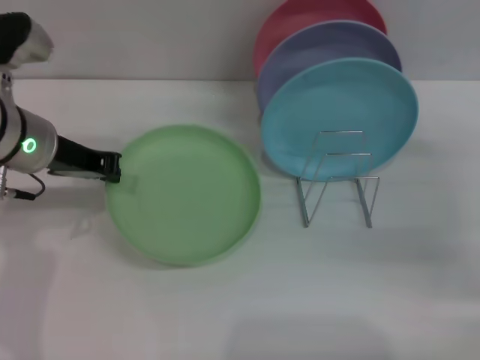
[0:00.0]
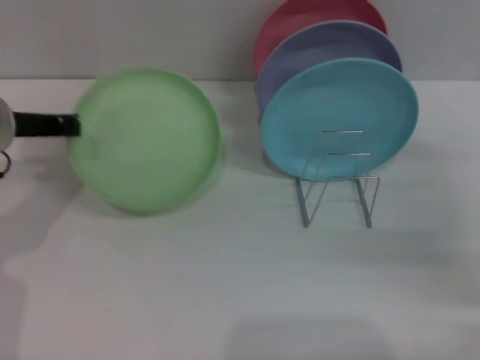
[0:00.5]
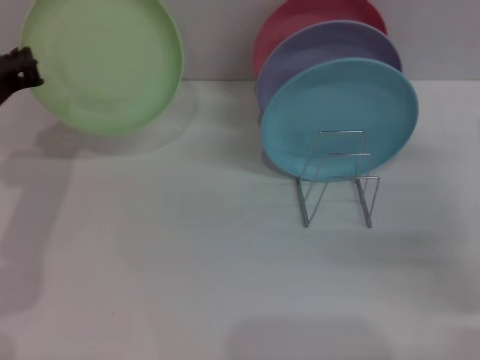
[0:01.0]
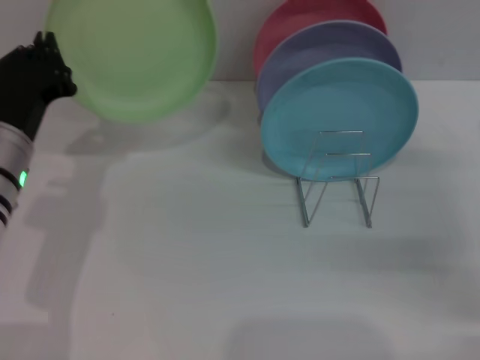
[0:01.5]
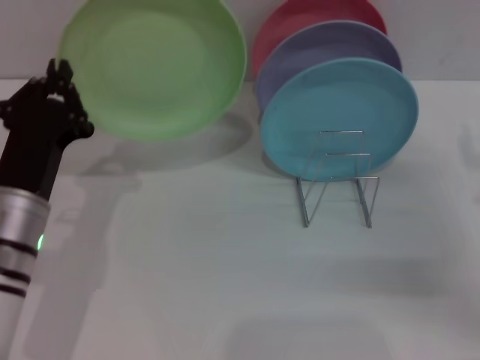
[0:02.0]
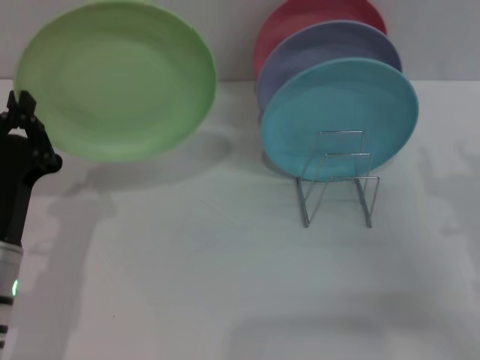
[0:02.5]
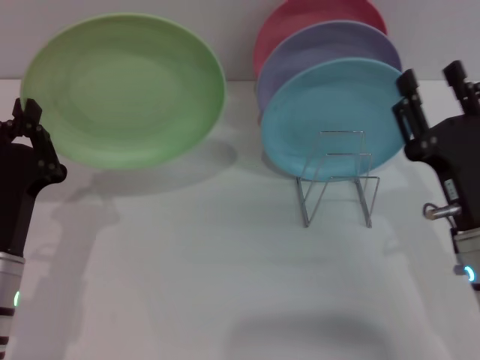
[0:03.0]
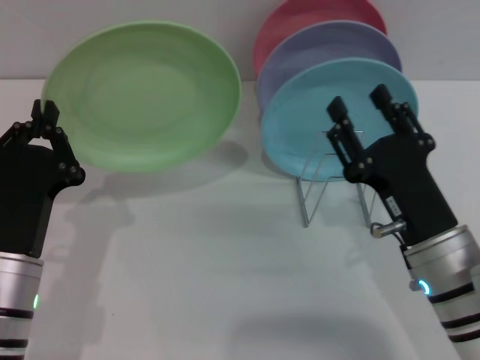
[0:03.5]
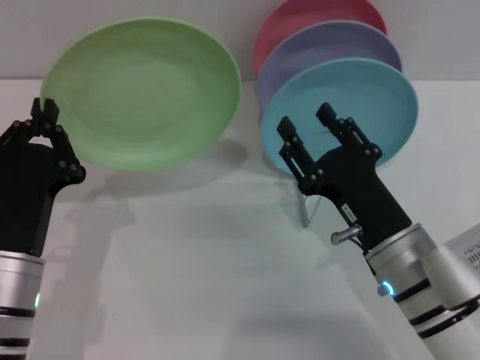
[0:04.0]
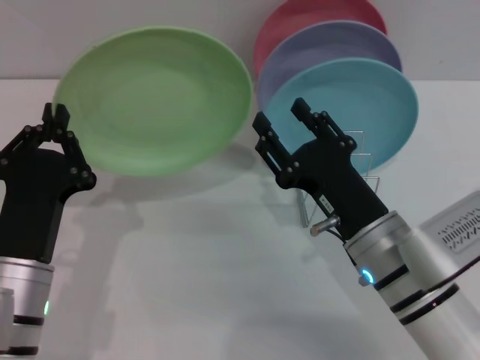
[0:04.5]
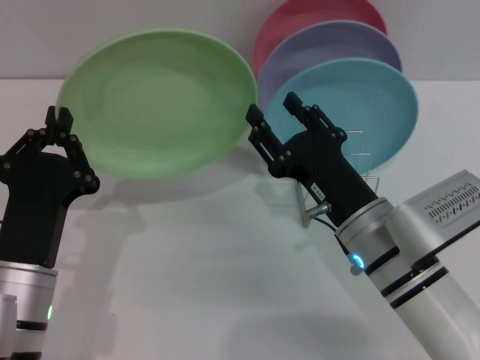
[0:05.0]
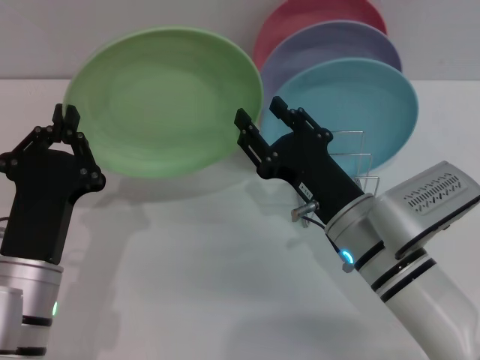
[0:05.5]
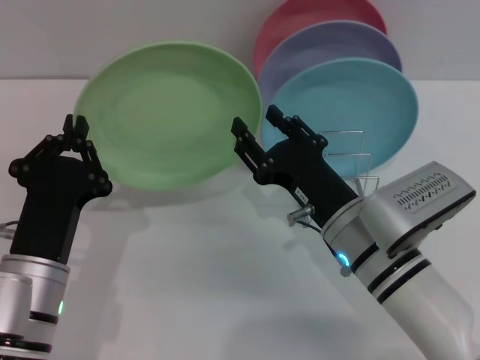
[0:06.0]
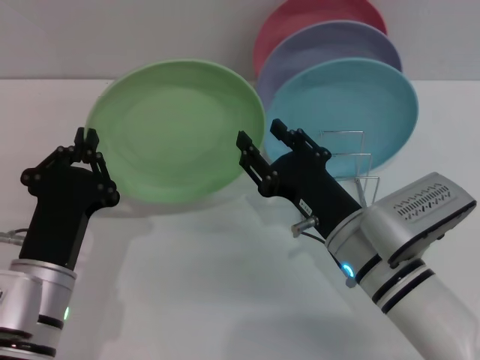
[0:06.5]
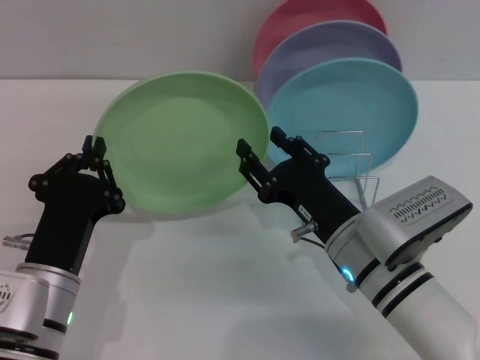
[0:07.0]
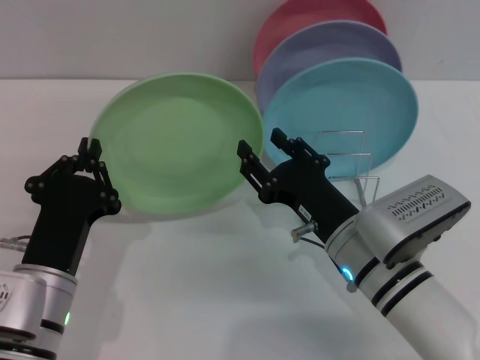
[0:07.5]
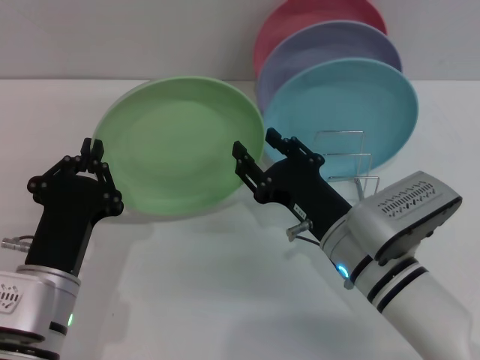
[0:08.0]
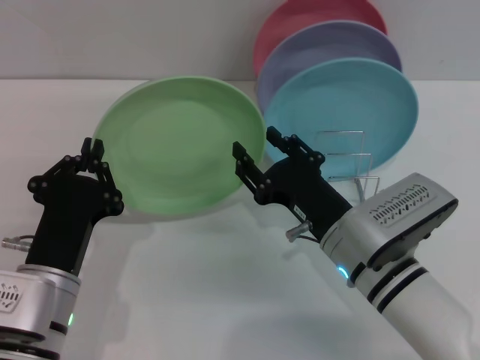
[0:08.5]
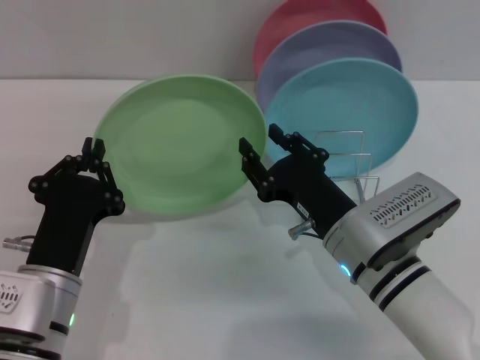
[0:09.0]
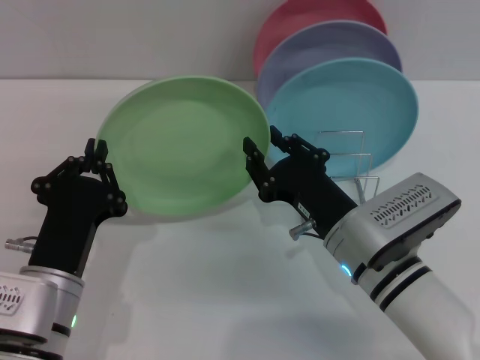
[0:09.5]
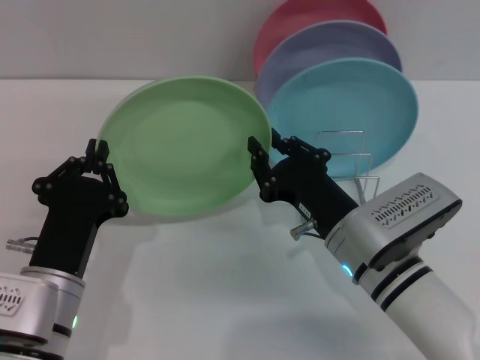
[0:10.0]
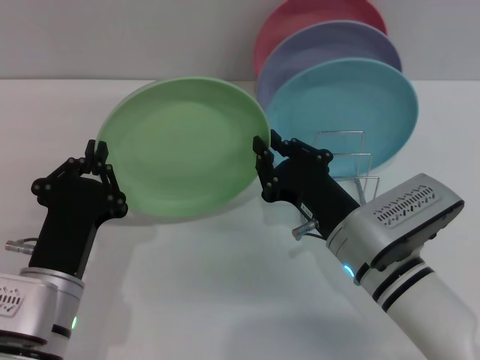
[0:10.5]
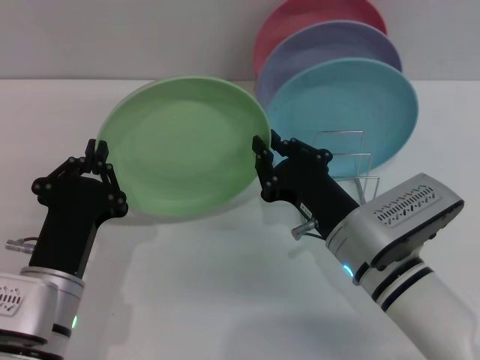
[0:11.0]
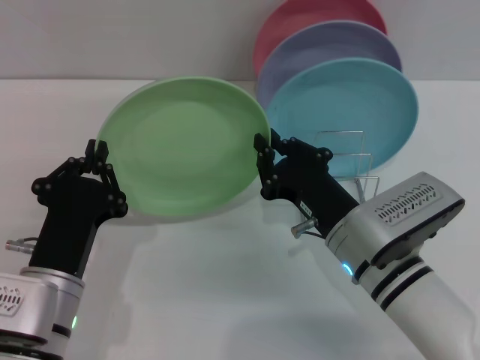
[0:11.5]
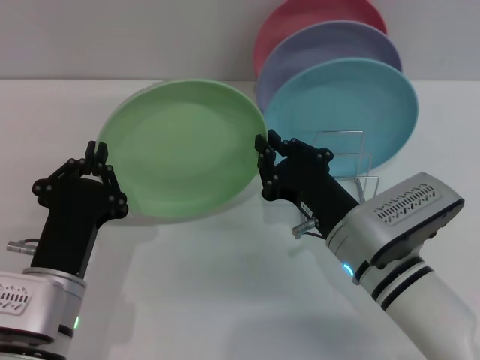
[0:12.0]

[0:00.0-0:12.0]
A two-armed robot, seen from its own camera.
Task of the whole recording: Grip the plate with one hand, pass it to the other, then set it on the shelf.
0:00.0 to 0:02.0: The left gripper goes about 15 cm backward and downward. The right gripper changes place by some 5 cm.
0:02.0 to 0:04.0: The right gripper is displaced to the left by roughly 15 cm.
0:06.0 to 0:08.0: The grippers stay close to where they were, moving slightly.
0:08.0 to 0:10.0: The right gripper closes its fingers.
0:10.0 to 0:12.0: The two grippers keep their place.

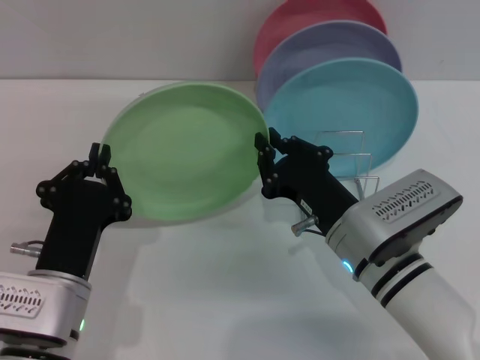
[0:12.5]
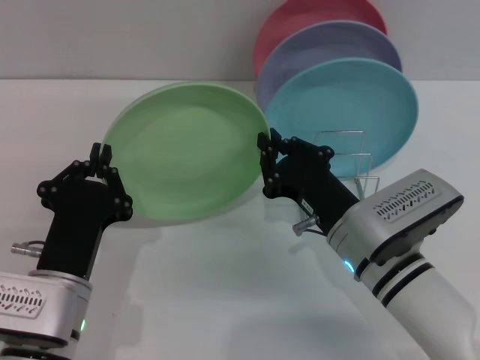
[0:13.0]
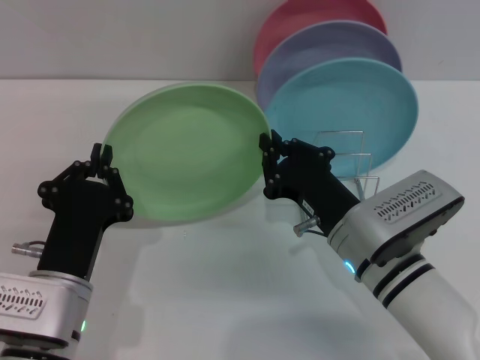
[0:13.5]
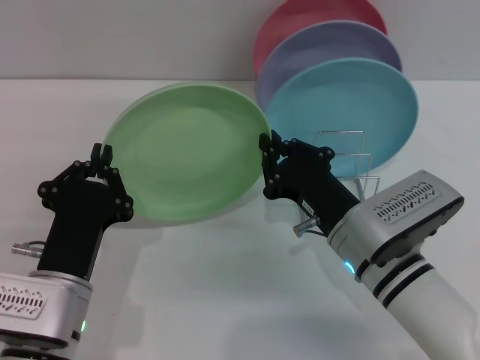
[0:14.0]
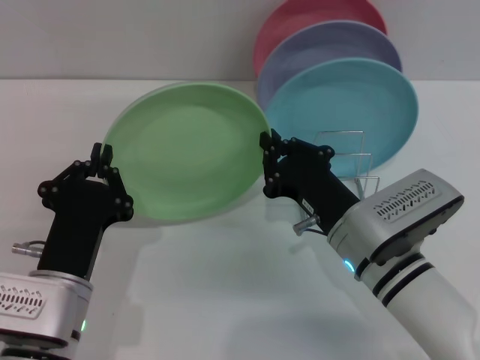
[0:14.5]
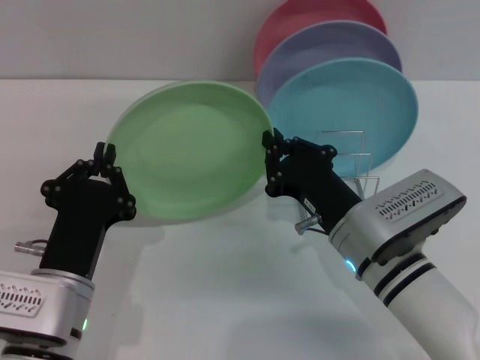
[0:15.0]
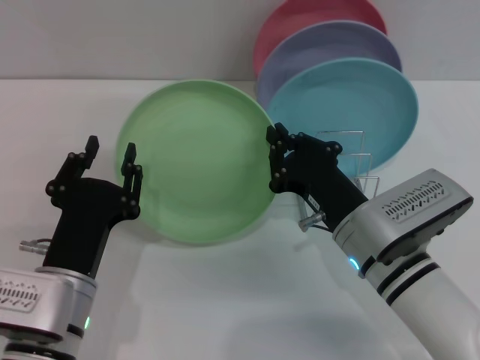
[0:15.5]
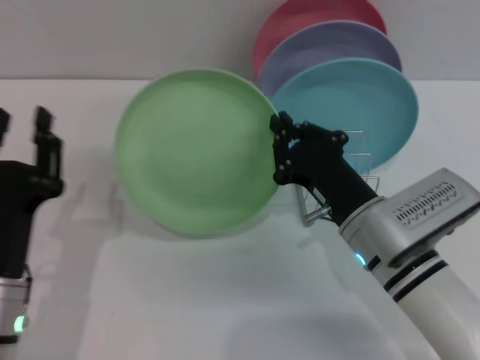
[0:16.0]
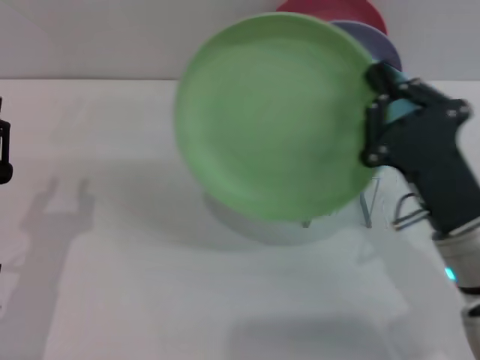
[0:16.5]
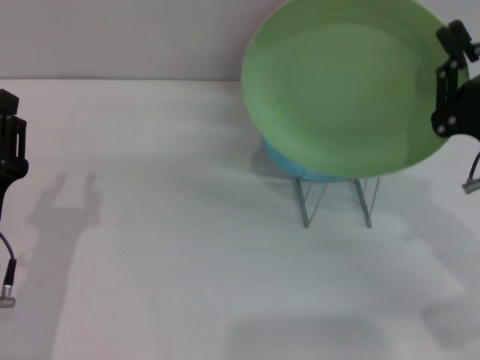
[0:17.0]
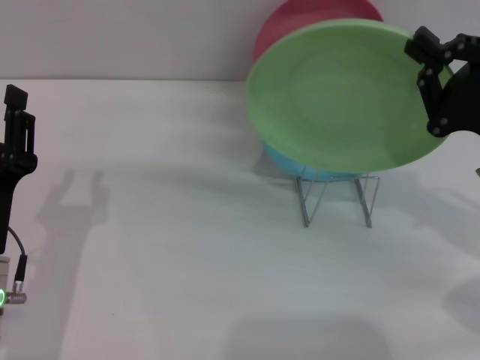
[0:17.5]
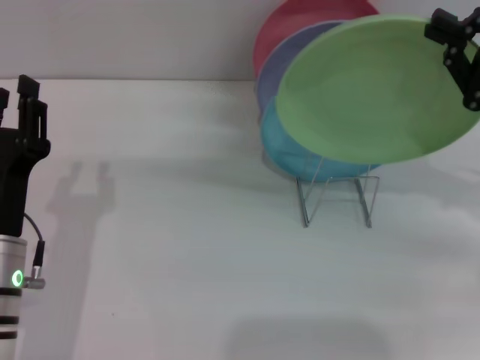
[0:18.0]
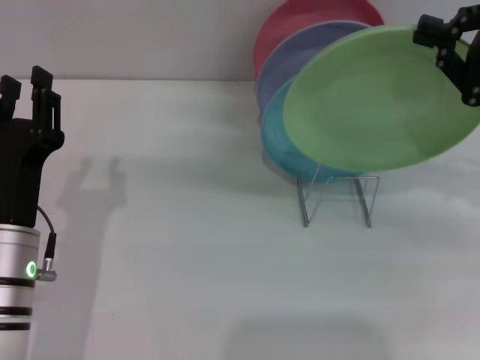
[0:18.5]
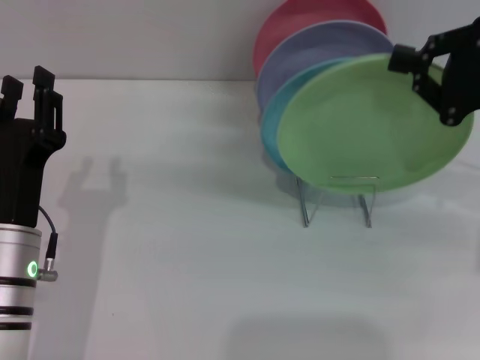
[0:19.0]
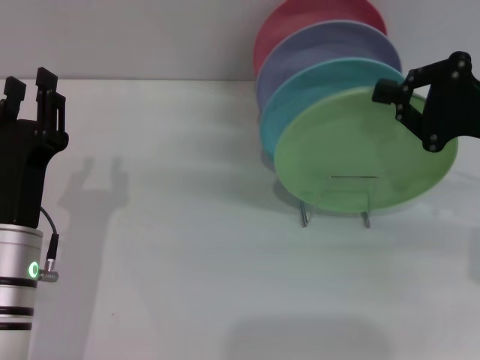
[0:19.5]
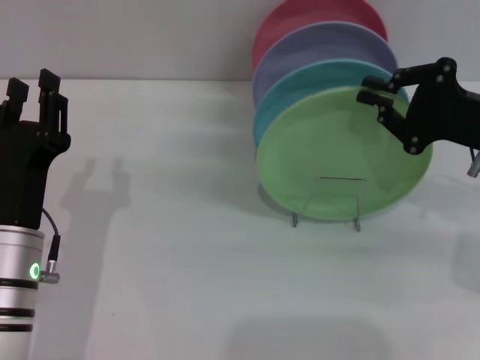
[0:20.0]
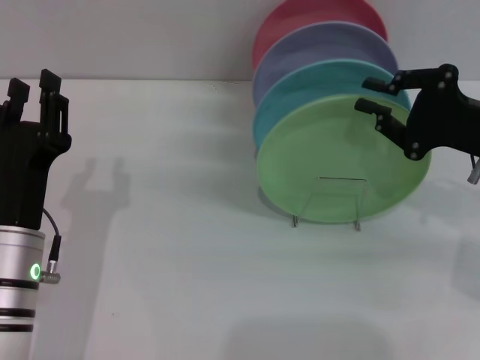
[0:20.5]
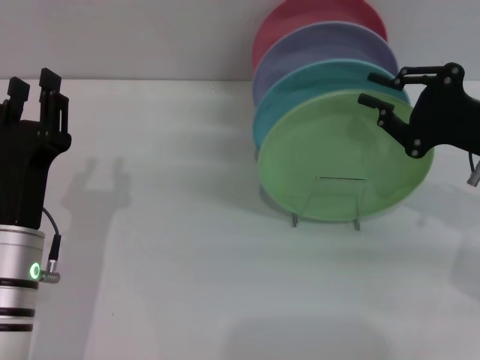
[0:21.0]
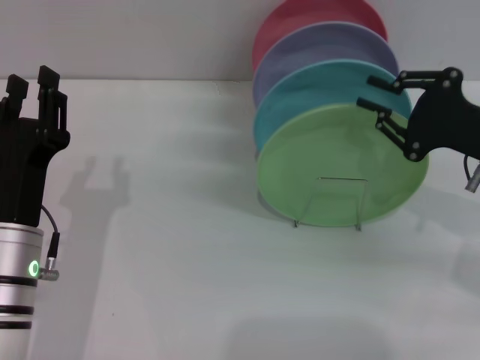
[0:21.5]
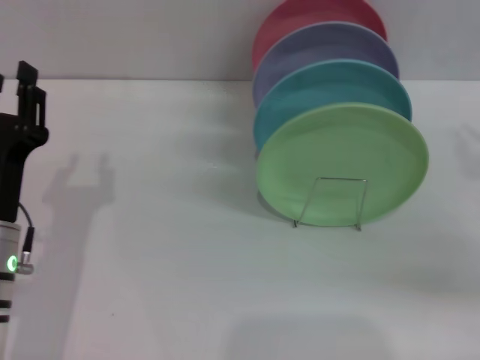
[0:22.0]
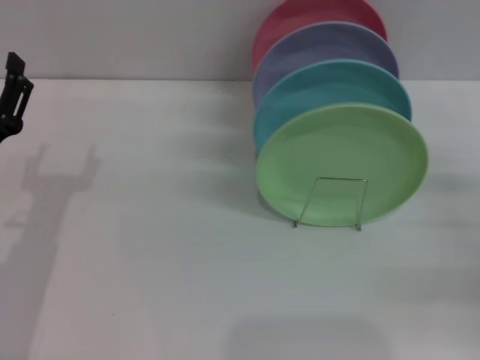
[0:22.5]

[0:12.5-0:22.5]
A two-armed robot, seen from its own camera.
Task of the whole recording: Grip the plate with one hand, pass it to the other, then set it on the shelf.
Step, 0:12.5 to 0:15.5: Pass the plate from the left gripper to the right gripper.
Step, 0:16.0 to 0:21.0: Place the plate on the shelf with the right gripper.
0:12.5 to 0:14.5: The two grippers keep their place.
0:14.5 to 0:16.5: The right gripper goes approximately 5 cm to the right; the left gripper moves to the left, about 10 cm, and opens its fingers.
0:16.5 to 0:18.5: The right gripper is displaced to the right, upward and forward by some 20 cm, while the left gripper moves approximately 5 cm.
0:18.5 to 0:20.5: The right gripper shifts roughly 5 cm downward.
0:20.5 to 0:22.5: The left gripper heads to the left, covering some 5 cm; the right gripper shifts approximately 10 cm to the right, backward and downward, and opens up.
